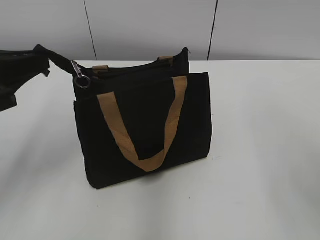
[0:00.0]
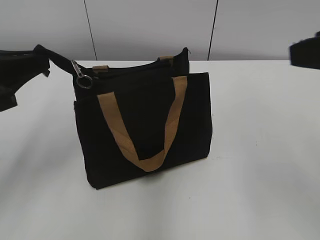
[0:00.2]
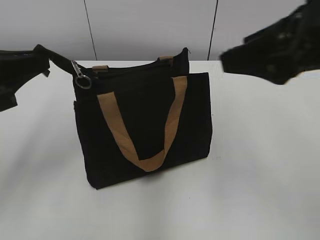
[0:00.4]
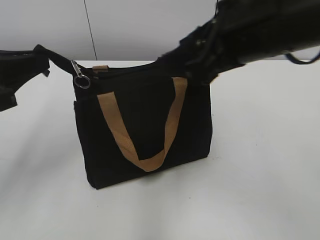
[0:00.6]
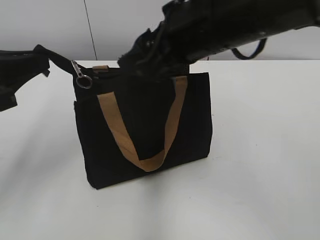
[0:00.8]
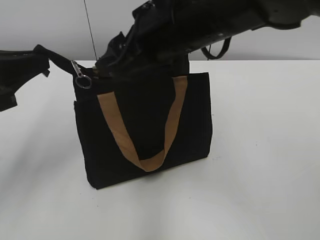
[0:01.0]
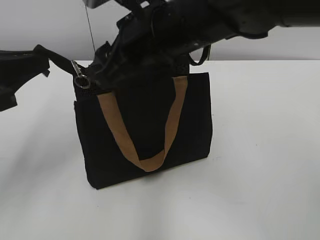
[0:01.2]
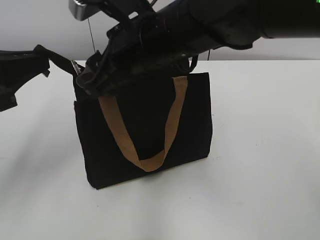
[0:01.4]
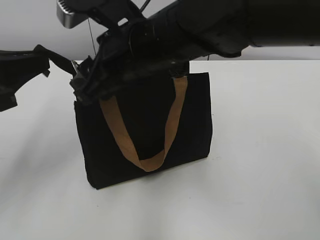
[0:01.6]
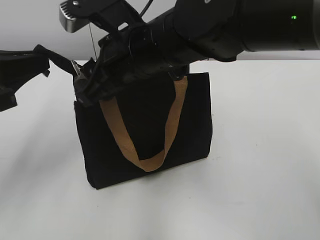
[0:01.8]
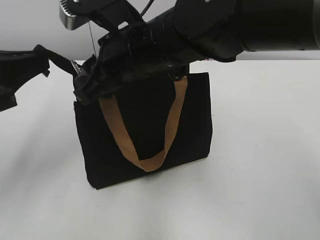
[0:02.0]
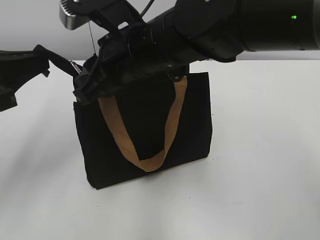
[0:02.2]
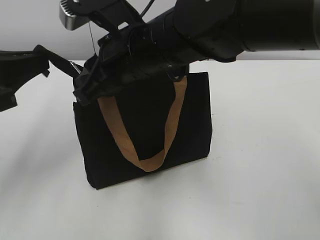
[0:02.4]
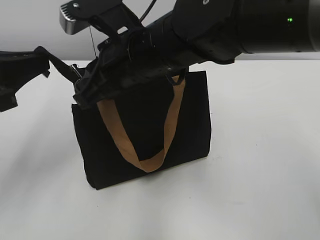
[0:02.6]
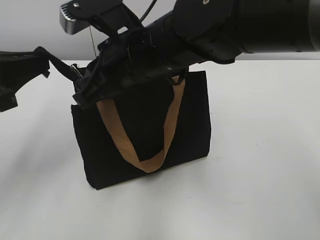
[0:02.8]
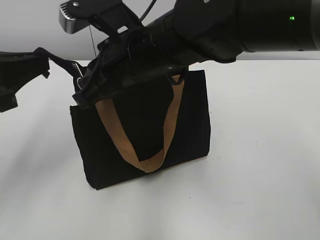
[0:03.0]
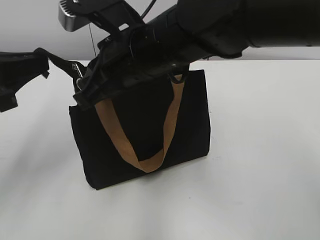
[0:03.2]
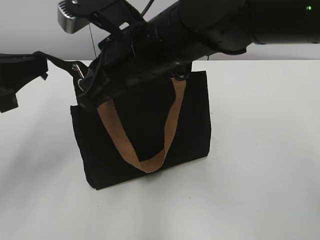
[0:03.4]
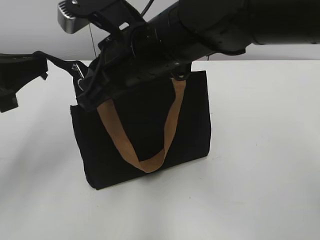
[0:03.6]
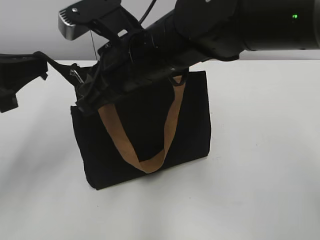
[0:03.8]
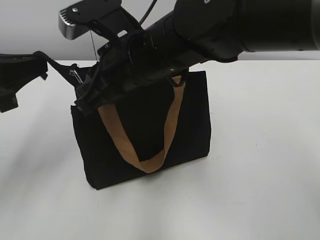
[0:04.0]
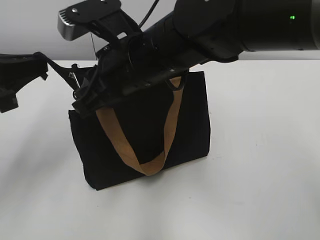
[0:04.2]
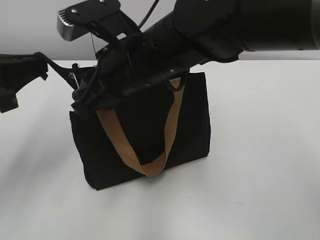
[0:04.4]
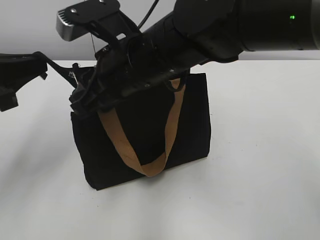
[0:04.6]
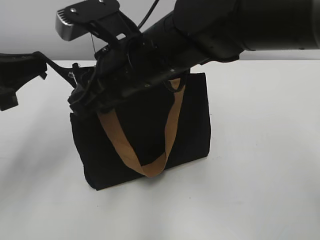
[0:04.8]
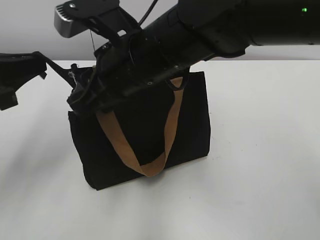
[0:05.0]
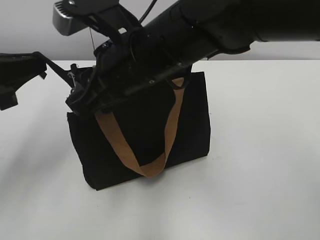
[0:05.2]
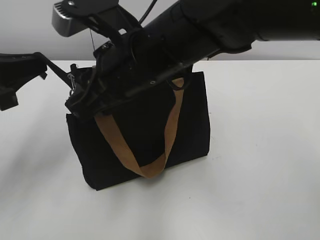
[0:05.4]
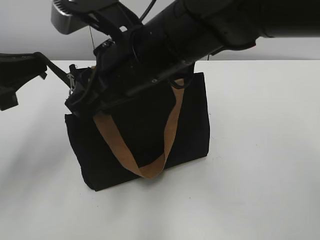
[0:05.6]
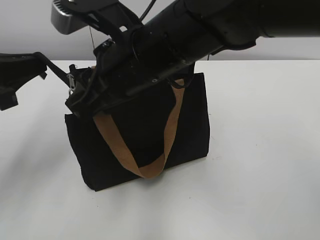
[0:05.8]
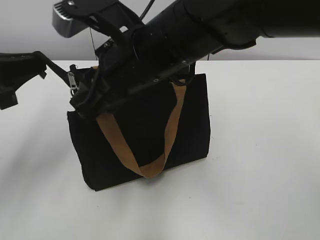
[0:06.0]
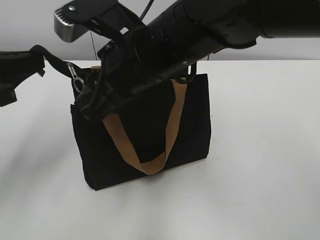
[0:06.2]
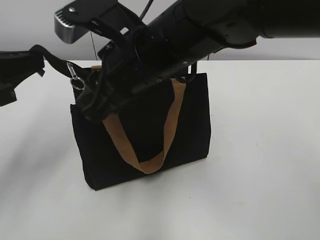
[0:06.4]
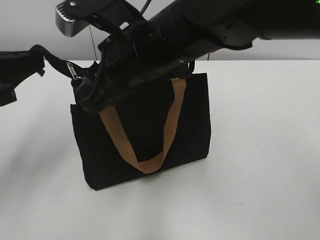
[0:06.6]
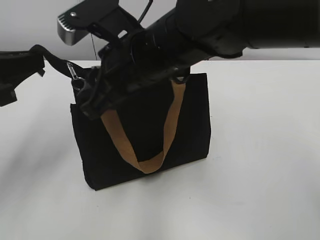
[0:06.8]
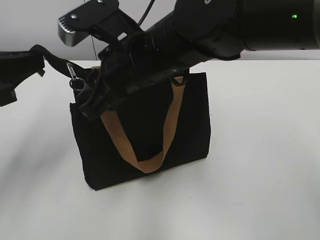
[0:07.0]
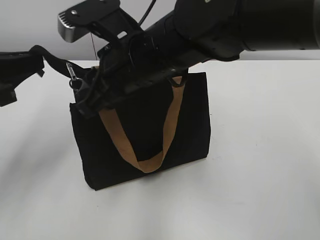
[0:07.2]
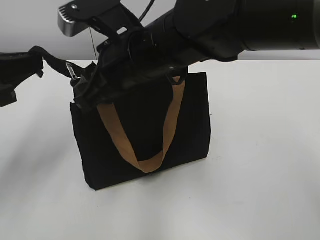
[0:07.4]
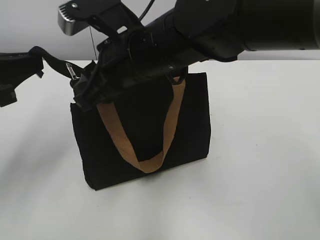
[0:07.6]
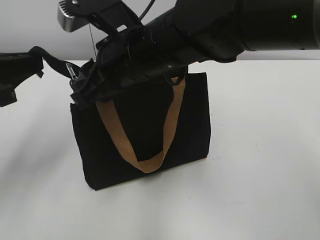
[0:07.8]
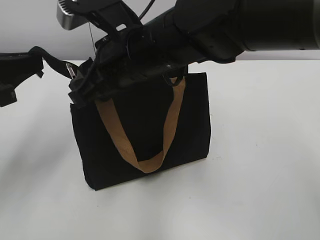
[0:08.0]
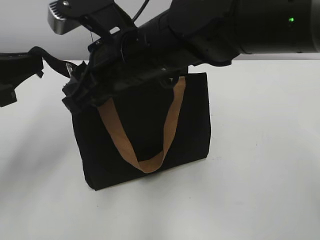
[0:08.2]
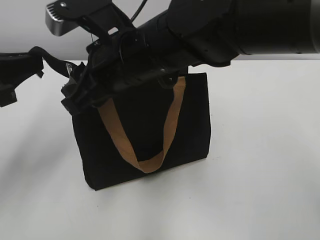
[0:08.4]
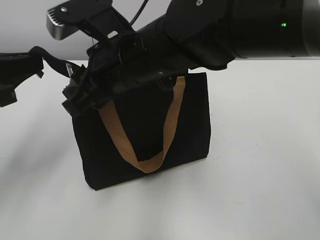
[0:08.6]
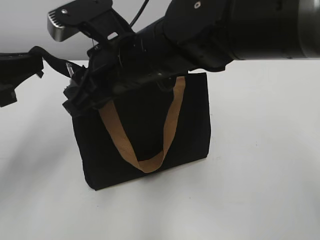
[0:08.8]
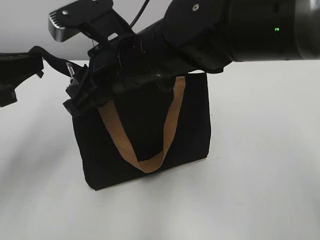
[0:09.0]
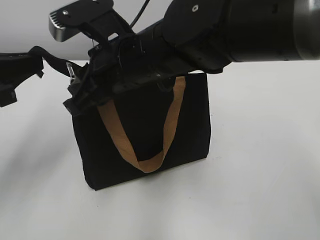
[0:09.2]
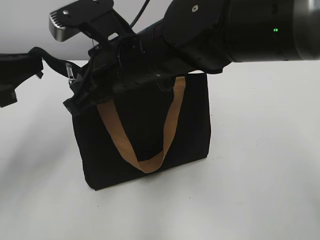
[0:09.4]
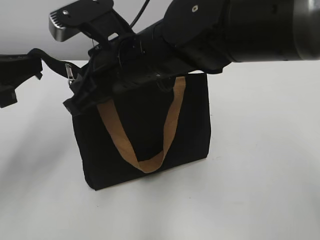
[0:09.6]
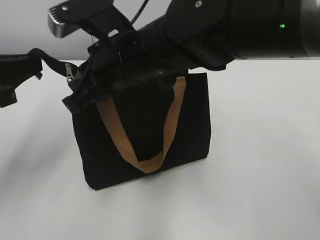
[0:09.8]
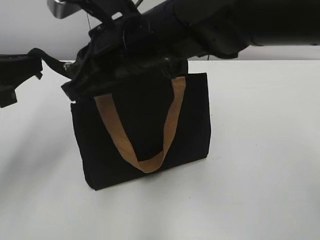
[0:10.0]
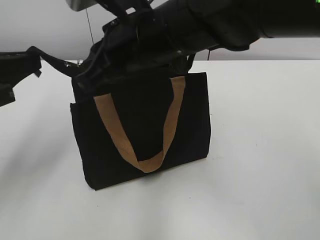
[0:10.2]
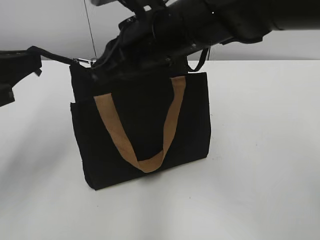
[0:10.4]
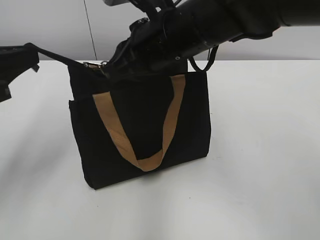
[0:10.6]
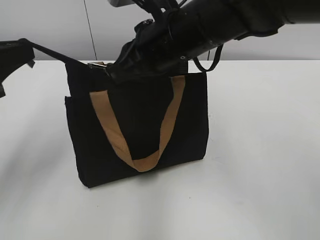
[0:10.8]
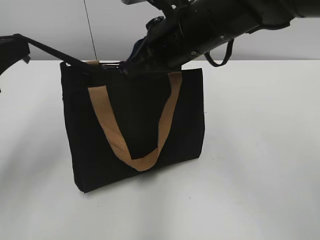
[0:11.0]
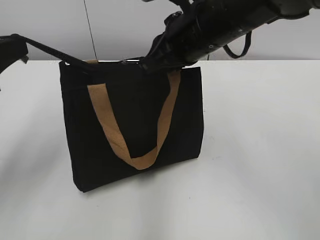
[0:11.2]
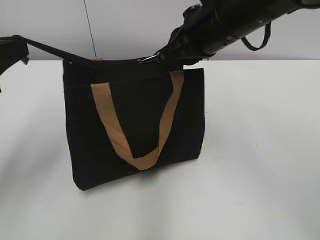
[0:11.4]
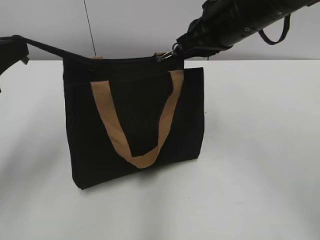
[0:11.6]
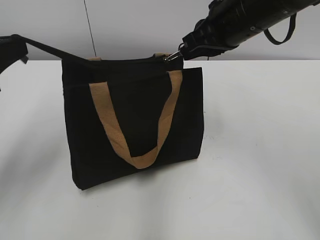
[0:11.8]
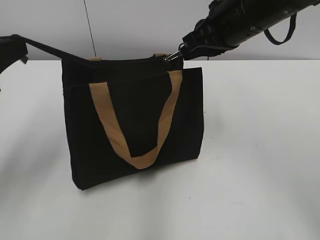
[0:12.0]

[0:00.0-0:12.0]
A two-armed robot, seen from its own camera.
0:00.0 to 0:01.6: The right gripper heads to the left and forward, covering approximately 30 cm.
0:01.6 to 0:03.0: The right gripper closes its fingers.
0:03.0 to 0:07.6: There are only small adjustments of the grippers.
0:07.6 to 0:09.0: Both grippers stay about where they are.
0:09.0 to 0:10.4: The right gripper closes up.
0:10.4 to 0:12.0: The right gripper moves to the right, some 10 cm.

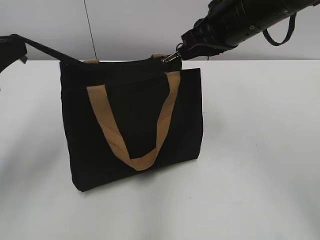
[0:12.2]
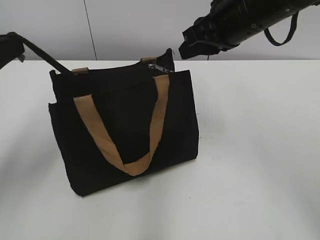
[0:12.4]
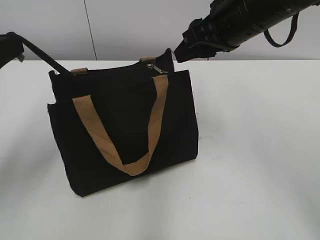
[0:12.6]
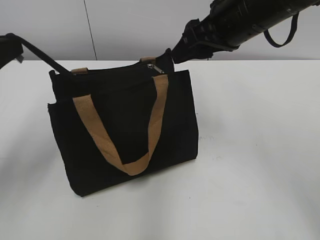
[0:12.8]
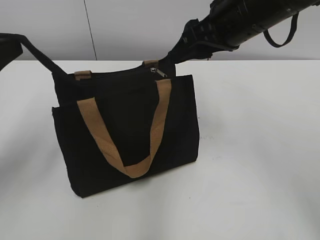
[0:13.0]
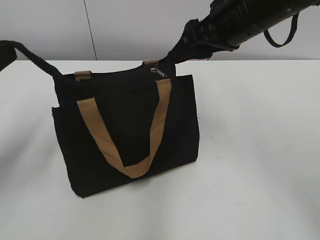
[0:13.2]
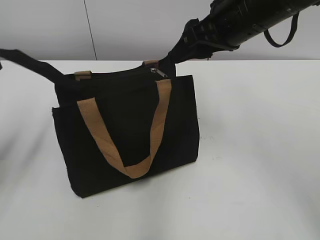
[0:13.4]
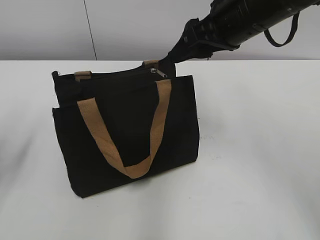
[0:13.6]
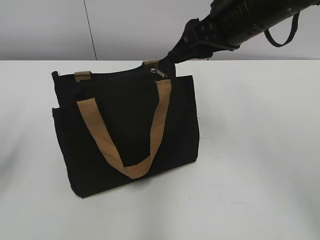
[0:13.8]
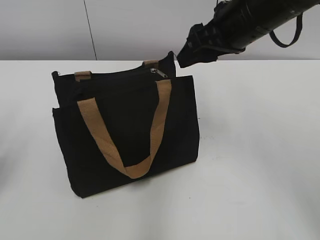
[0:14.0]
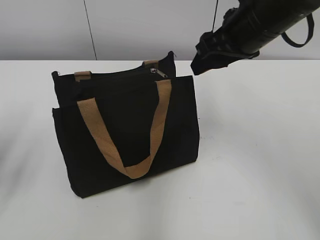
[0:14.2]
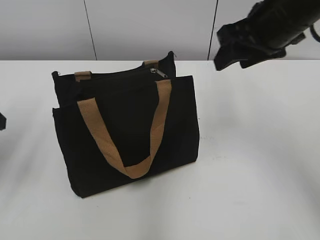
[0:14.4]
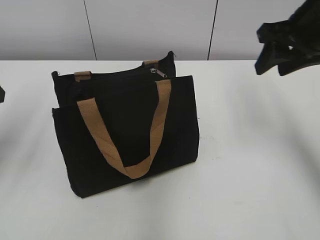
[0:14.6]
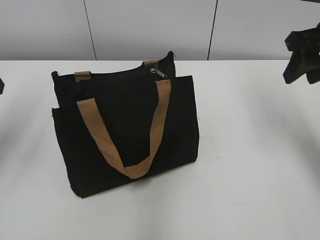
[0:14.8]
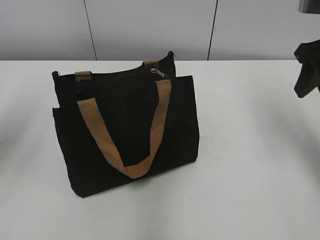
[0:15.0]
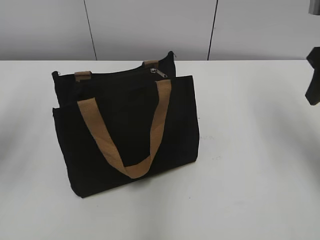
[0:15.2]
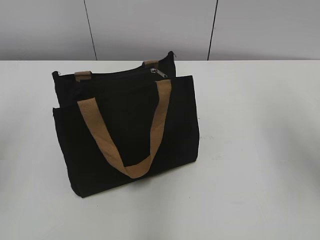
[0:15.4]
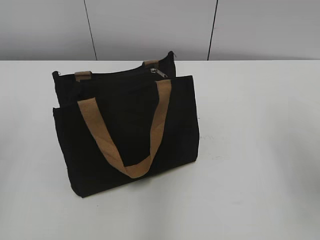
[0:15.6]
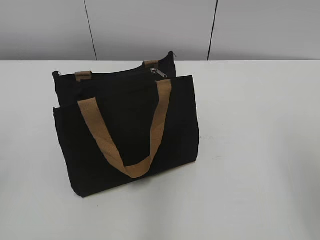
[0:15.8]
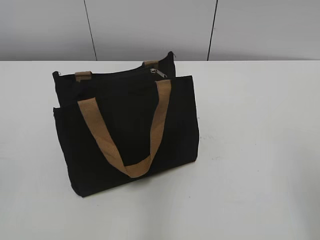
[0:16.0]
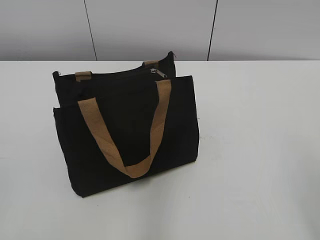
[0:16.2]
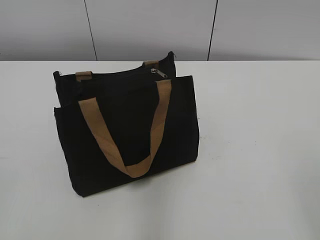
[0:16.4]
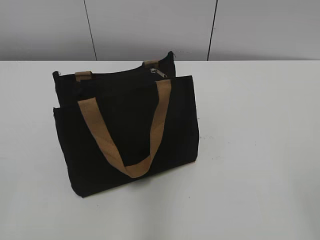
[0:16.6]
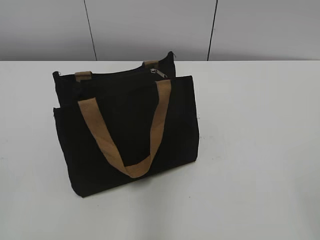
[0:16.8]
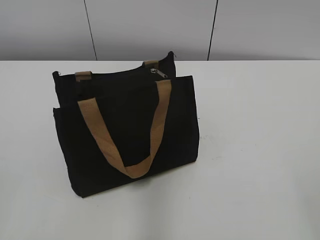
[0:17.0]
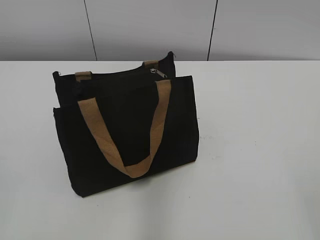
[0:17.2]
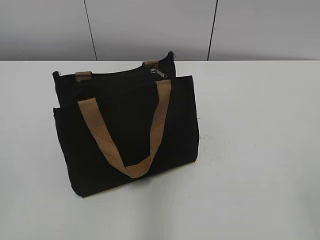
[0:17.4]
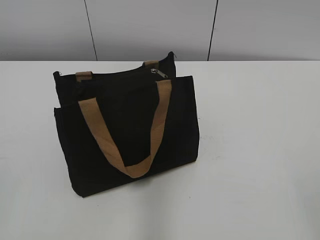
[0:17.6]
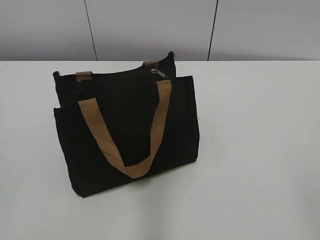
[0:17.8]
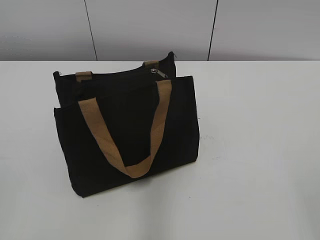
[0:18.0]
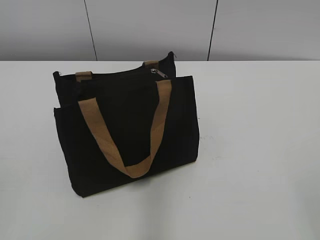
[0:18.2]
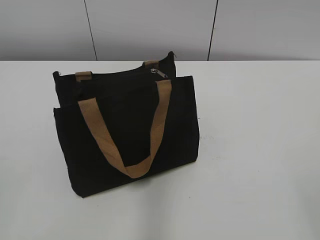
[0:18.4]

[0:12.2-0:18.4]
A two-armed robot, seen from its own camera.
Step, 0:12.4 to 0:13.4: Grab the zipper with your left hand.
0:12.2 to 0:13.8: The right gripper opens up; the left gripper shifts roughly 5 cm to the left, and opens.
0:13.8 to 0:15.4: The left gripper heads upward, covering about 10 cm. Meanwhile the right gripper heads to the right and backward, covering some 15 cm.
0:15.4 to 0:16.8: The grippers both shift backward by approximately 25 cm.
0:16.8 to 0:18.4: The two grippers keep their place.

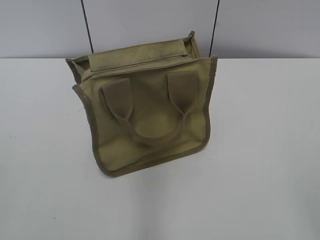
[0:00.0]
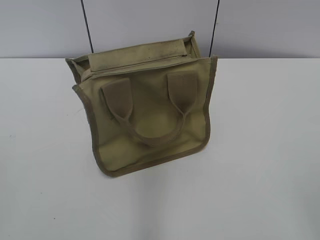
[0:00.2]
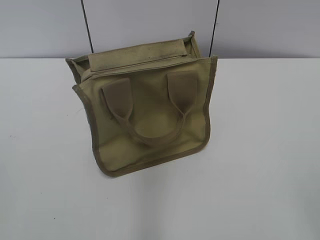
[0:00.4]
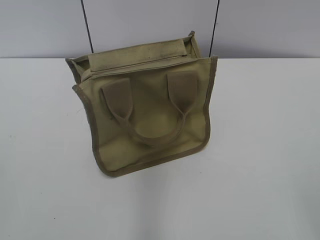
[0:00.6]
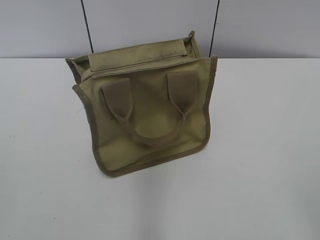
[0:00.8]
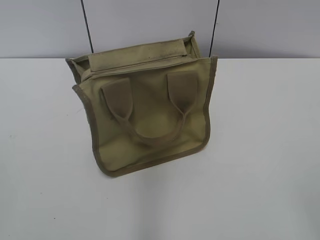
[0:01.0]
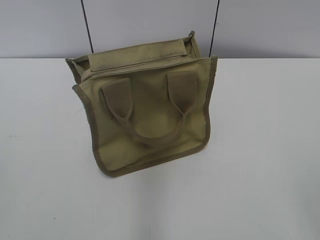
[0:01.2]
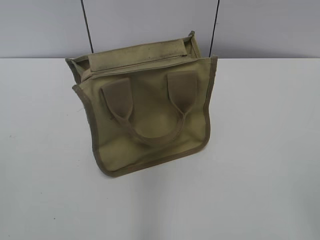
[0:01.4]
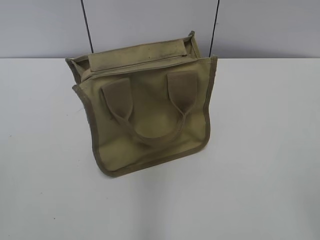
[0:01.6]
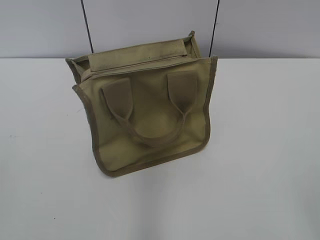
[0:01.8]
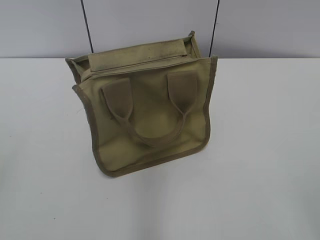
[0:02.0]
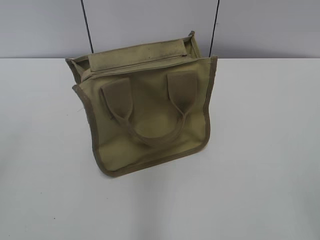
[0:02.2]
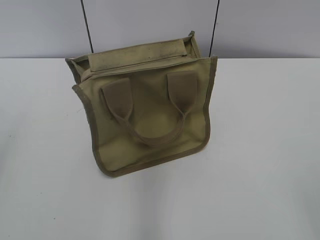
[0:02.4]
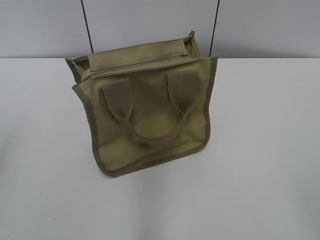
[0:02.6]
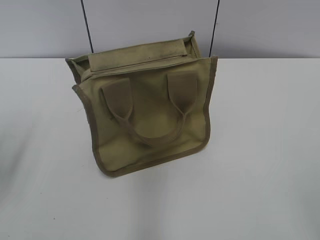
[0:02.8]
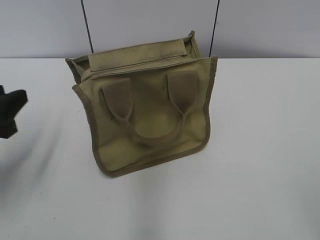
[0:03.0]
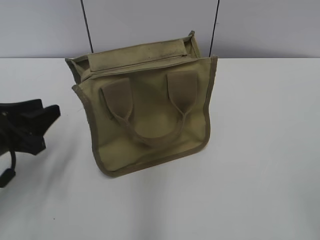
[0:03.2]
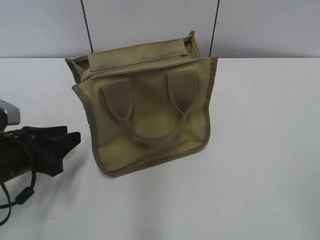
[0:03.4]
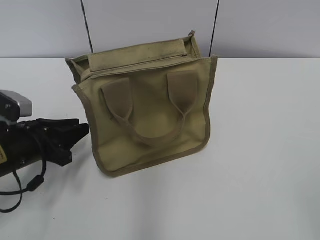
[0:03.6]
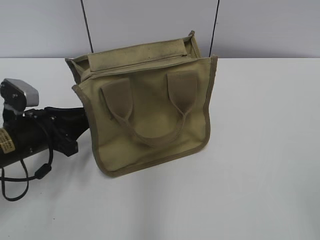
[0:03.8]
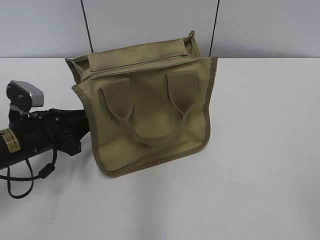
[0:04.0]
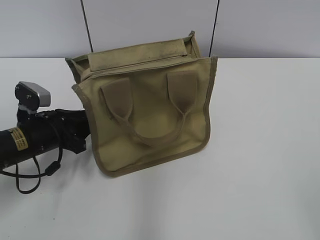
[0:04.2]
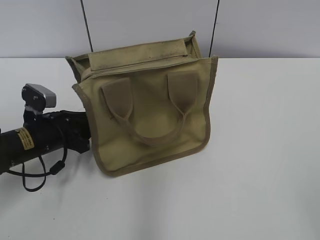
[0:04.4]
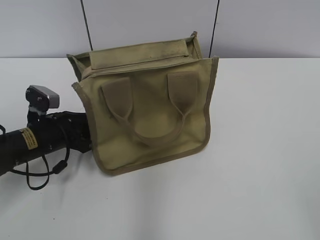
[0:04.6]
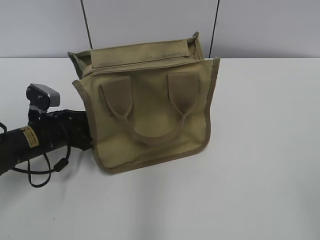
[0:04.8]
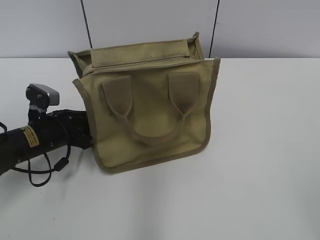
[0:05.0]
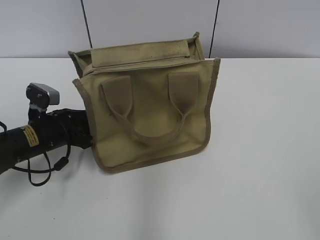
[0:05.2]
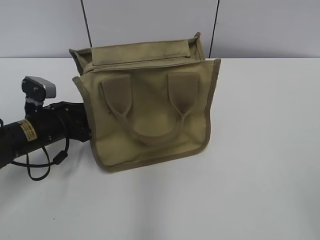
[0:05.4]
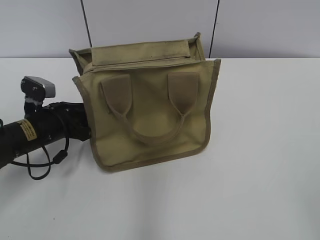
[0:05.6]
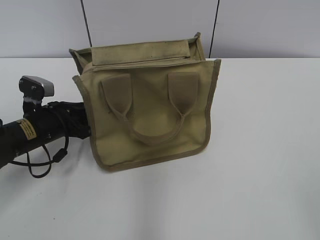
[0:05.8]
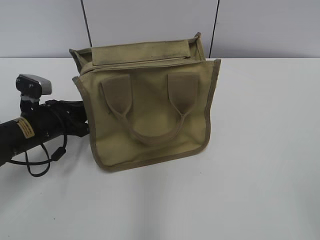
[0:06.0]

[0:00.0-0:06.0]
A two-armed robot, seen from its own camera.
0:01.6 to 0:03.0: The left gripper travels forward and downward by about 25 cm.
0:03.0 to 0:04.4: The left gripper heads downward, forward and to the right, covering some 15 cm.
0:04.4 to 0:06.0: The left gripper closes up.
